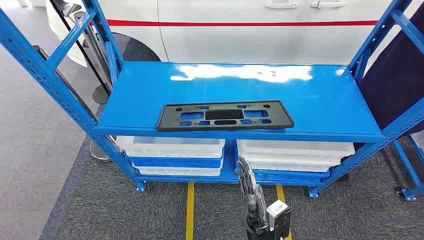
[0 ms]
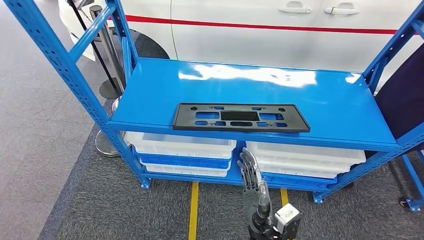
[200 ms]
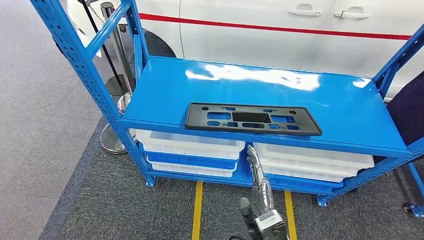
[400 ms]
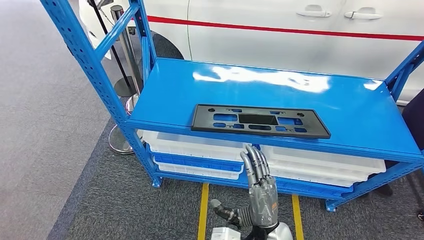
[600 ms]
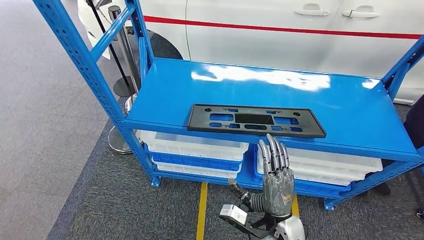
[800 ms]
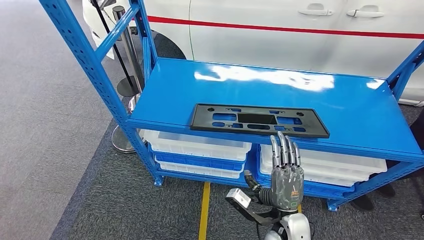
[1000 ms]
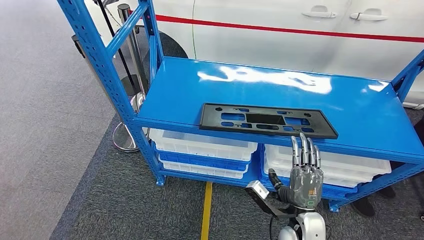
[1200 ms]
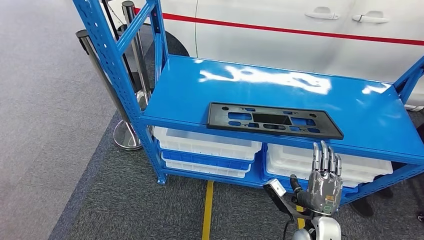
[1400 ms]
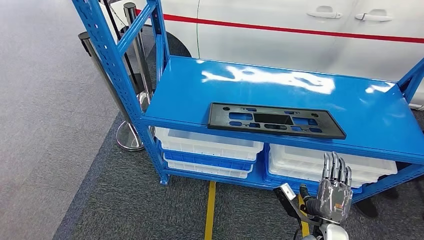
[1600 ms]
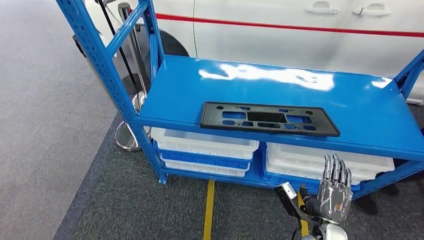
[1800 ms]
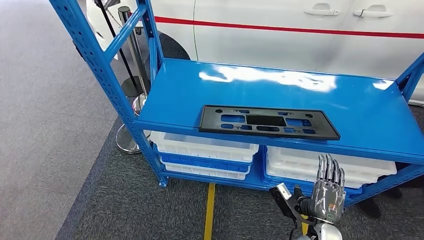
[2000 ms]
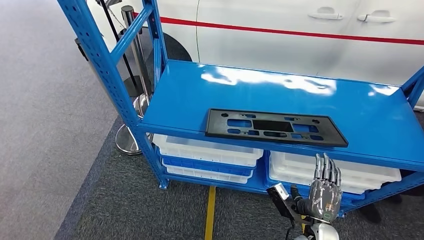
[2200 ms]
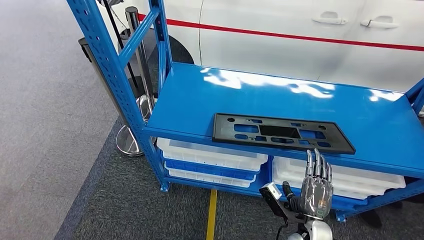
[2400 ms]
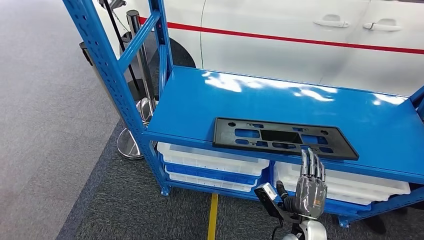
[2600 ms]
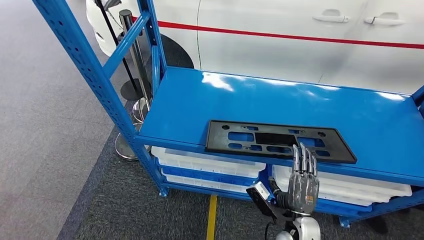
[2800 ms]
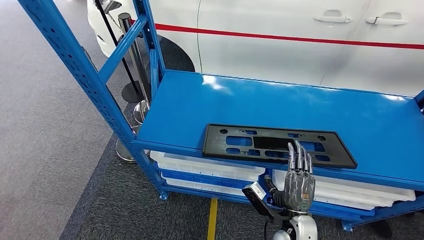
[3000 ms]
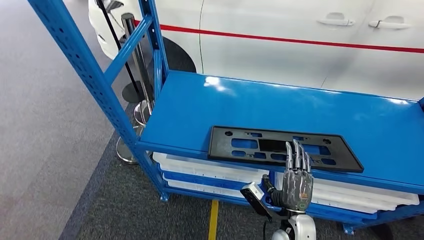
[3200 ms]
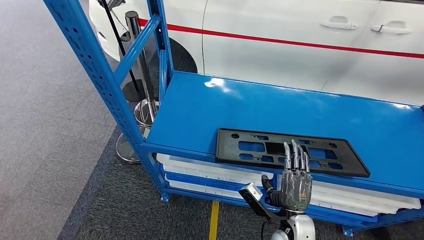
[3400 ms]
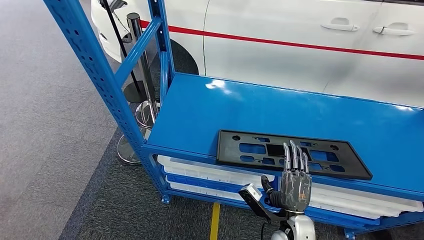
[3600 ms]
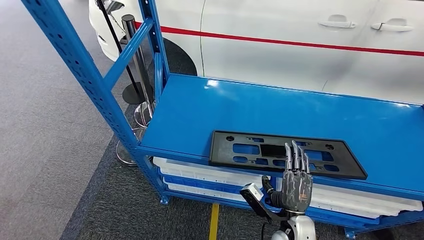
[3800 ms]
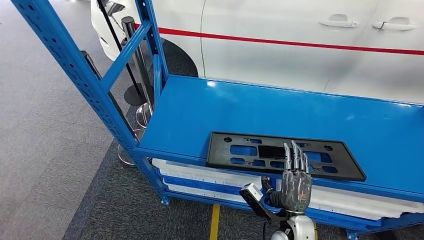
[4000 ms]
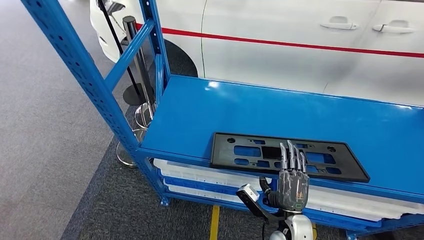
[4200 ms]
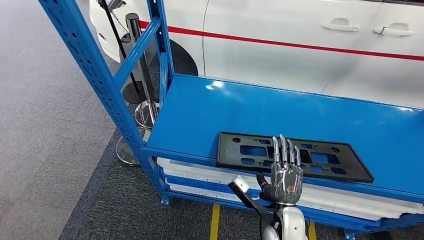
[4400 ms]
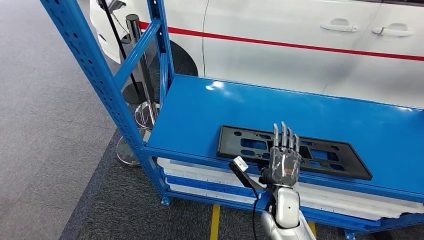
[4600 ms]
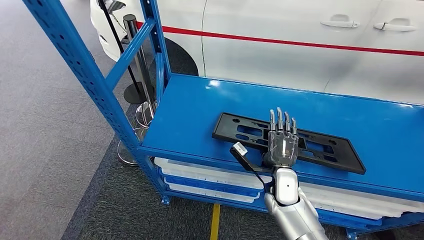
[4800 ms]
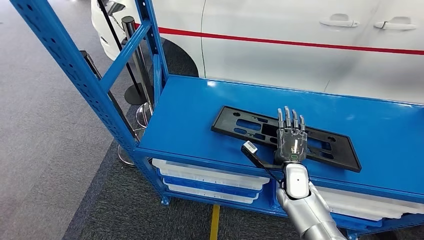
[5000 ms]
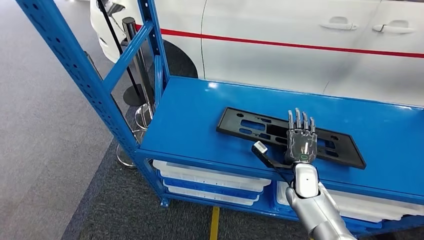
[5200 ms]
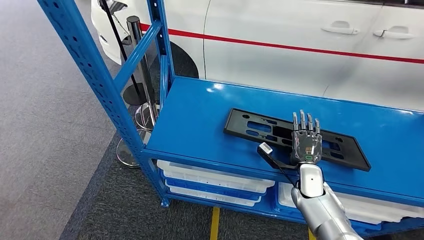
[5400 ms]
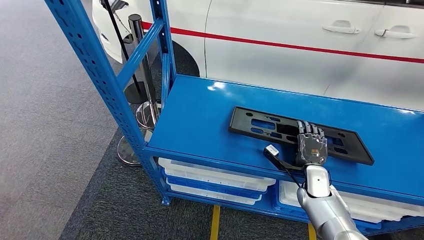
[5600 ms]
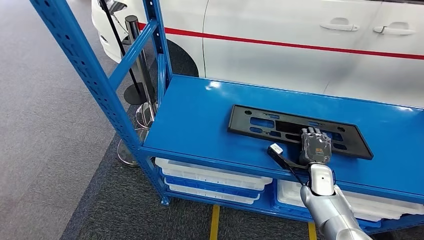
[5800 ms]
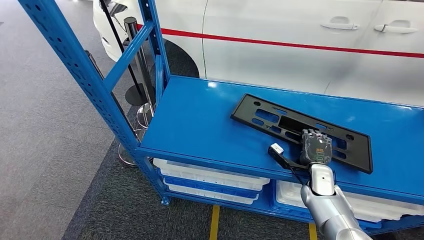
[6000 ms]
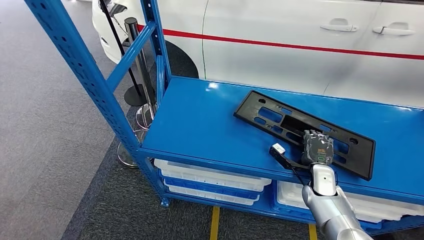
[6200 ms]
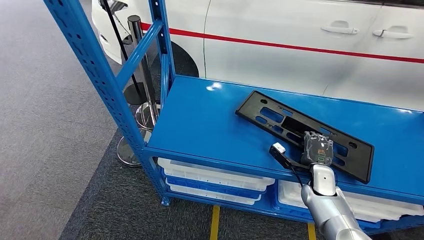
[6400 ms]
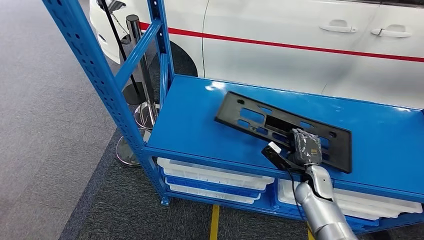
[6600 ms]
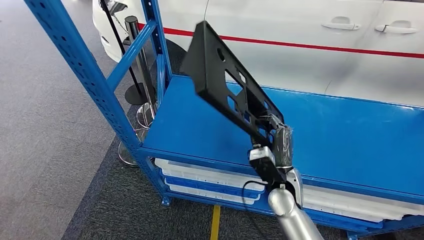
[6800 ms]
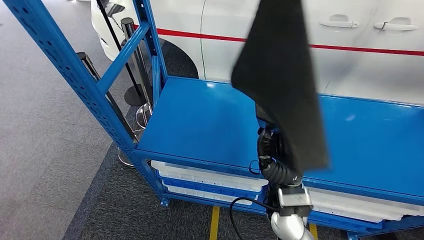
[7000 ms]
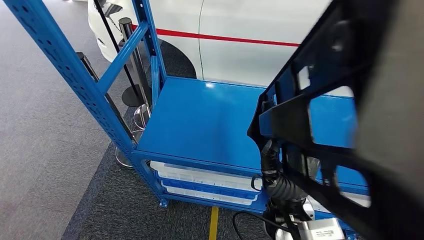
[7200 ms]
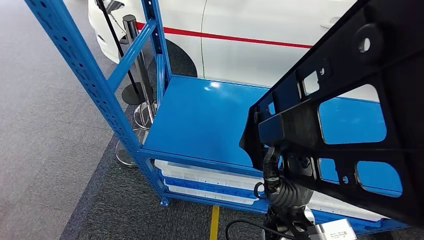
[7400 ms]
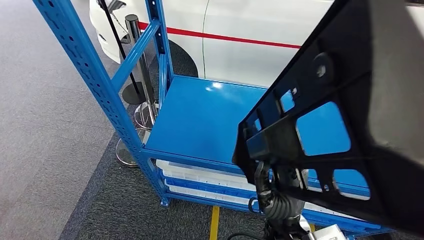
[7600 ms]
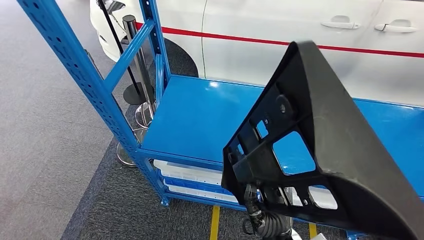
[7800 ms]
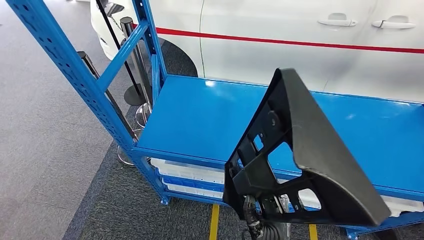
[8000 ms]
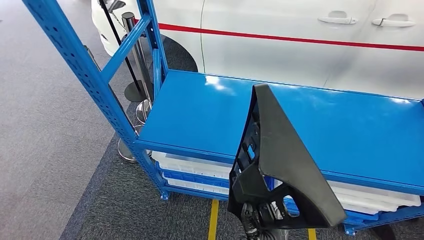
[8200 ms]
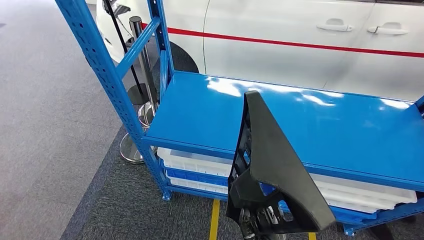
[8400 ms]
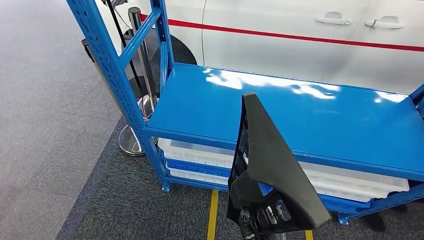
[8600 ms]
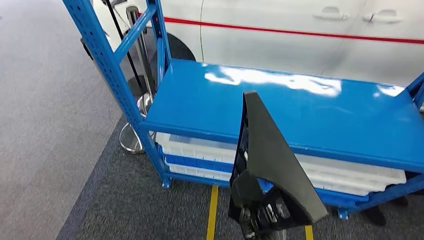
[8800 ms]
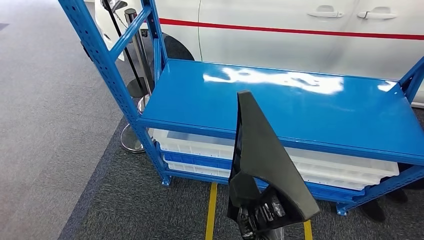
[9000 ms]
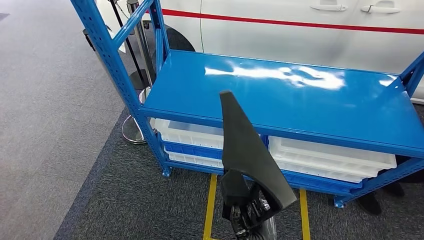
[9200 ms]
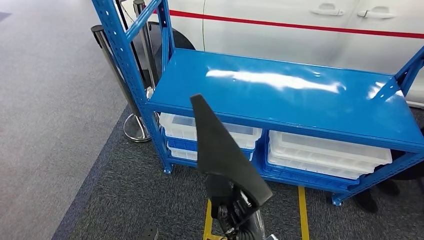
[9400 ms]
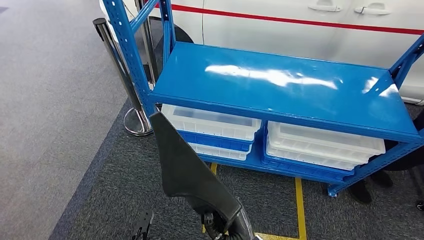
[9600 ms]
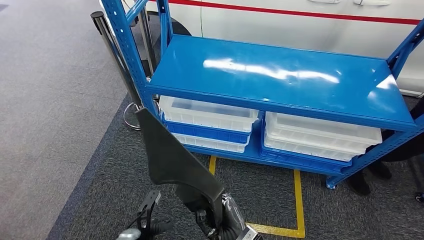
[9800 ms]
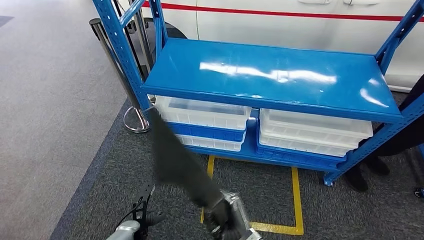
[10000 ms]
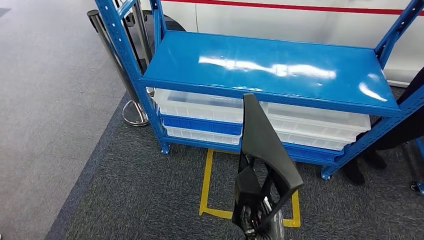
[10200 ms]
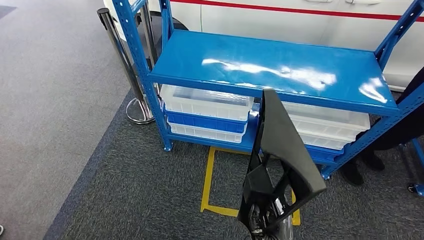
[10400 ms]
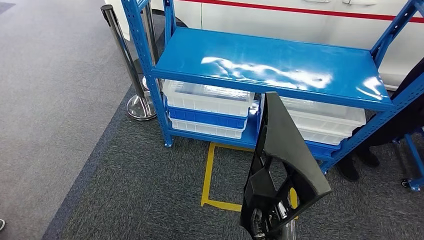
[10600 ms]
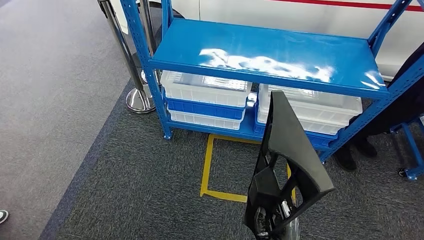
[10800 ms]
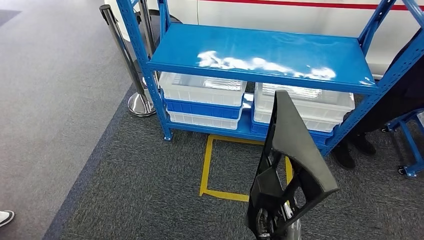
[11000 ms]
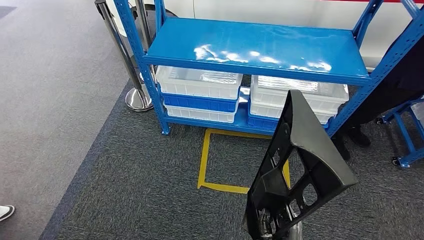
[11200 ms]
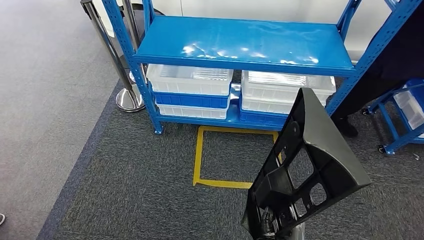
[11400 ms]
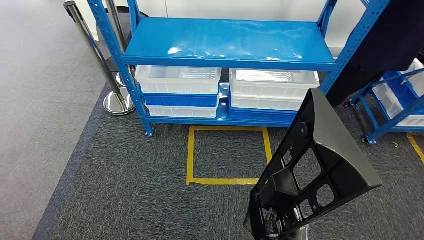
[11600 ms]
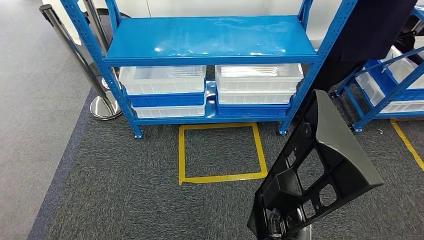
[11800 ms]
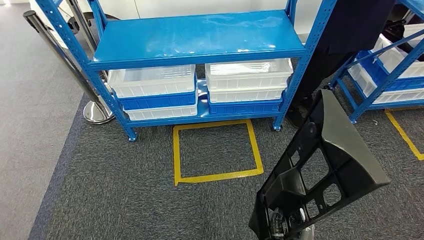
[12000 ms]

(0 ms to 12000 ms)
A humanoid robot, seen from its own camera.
Step, 0 ms - 9200 ms: Pick up the large material from the shelf.

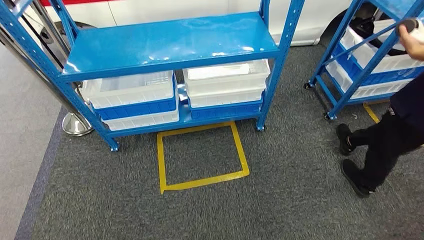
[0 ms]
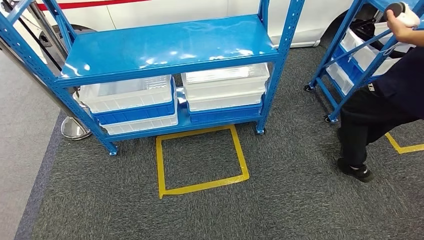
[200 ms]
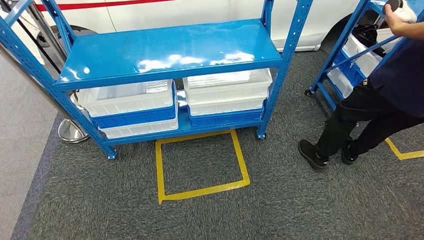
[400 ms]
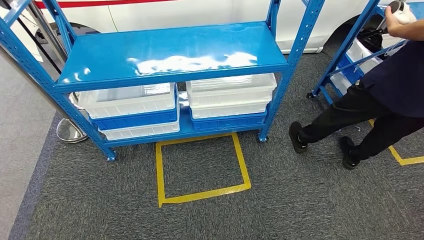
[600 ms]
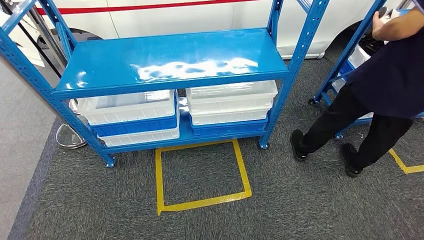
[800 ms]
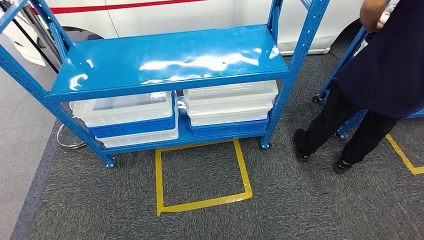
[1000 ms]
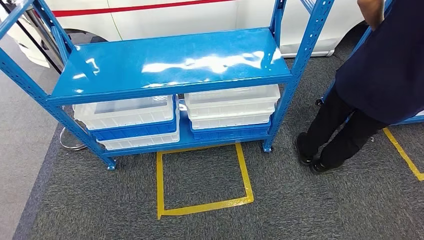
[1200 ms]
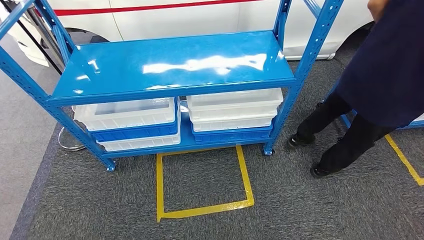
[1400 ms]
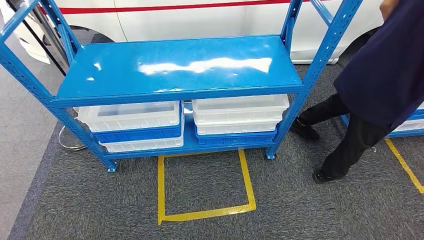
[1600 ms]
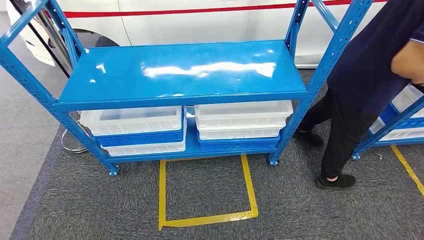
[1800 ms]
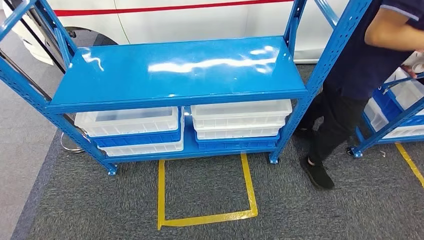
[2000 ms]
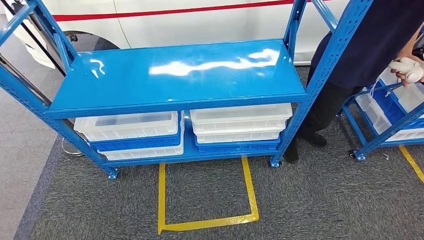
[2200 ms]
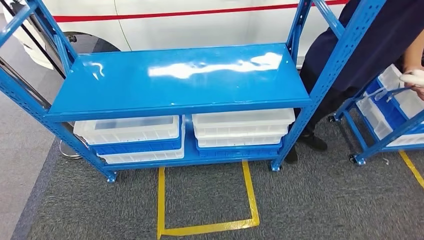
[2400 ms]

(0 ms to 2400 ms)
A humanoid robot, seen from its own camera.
Step, 0 ms - 2400 ms: Move to the initial position of the shelf.
